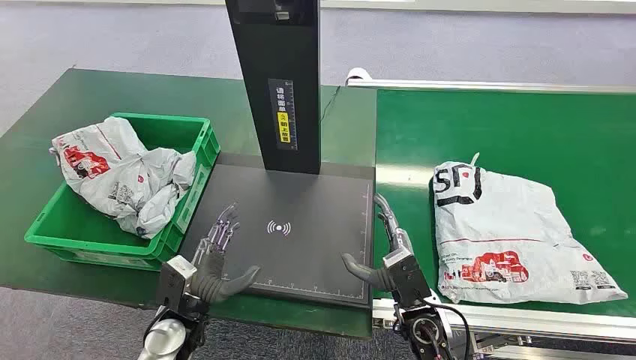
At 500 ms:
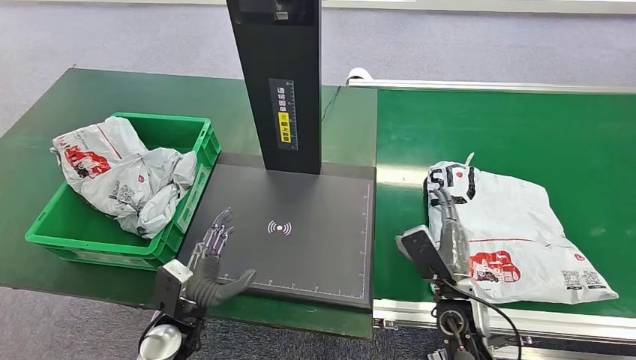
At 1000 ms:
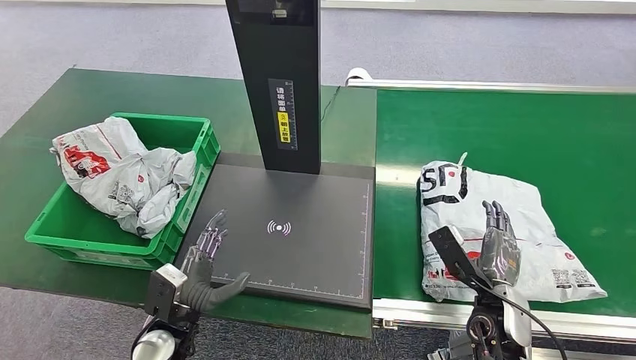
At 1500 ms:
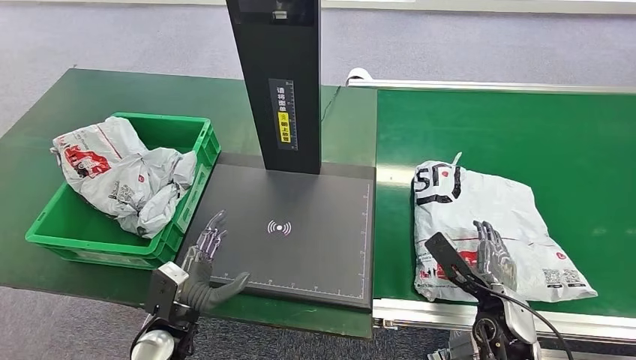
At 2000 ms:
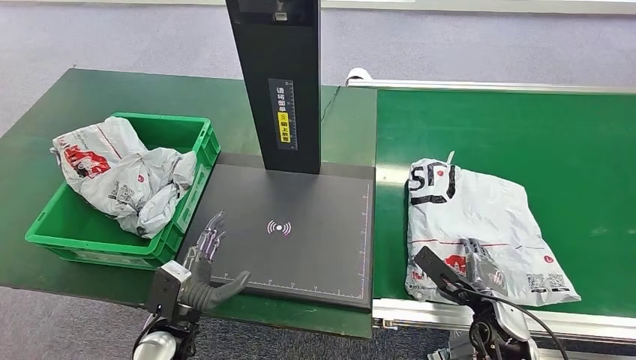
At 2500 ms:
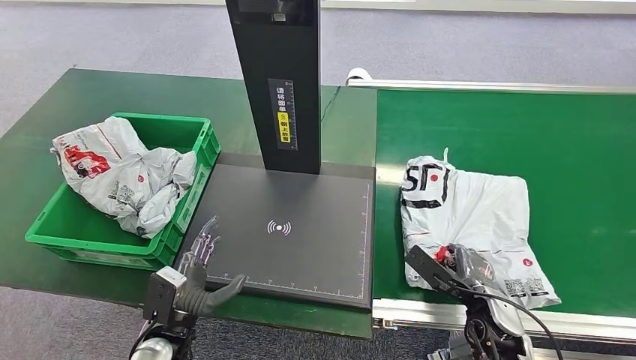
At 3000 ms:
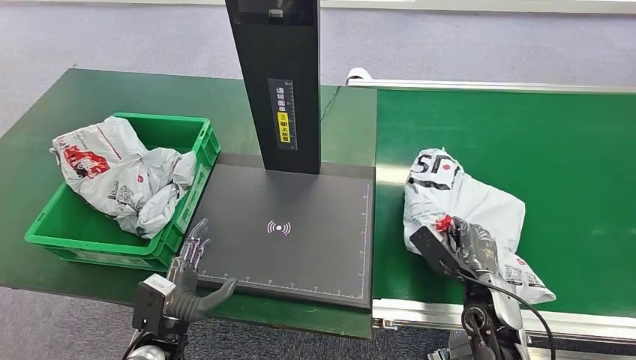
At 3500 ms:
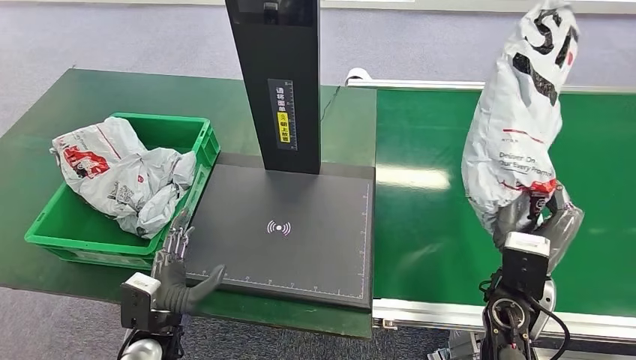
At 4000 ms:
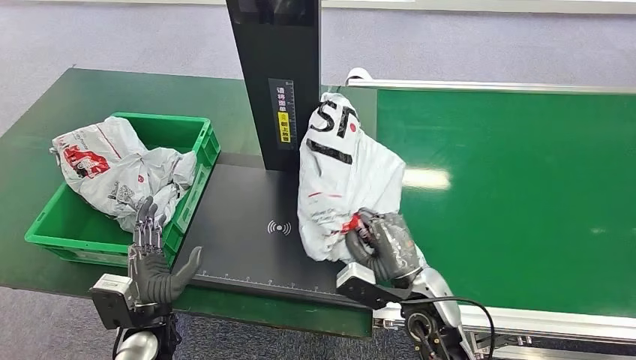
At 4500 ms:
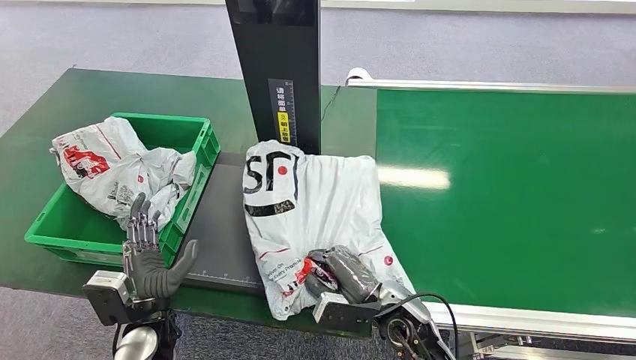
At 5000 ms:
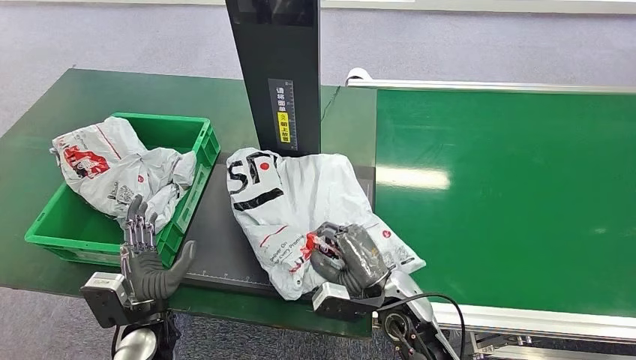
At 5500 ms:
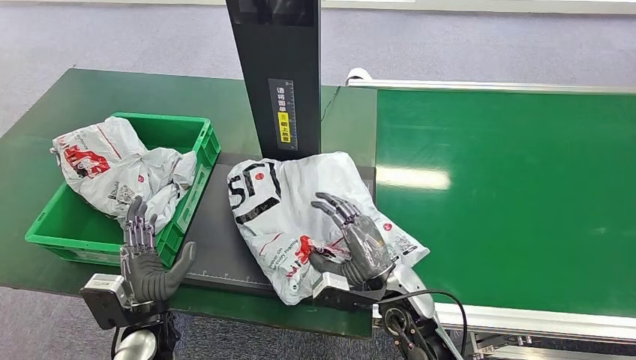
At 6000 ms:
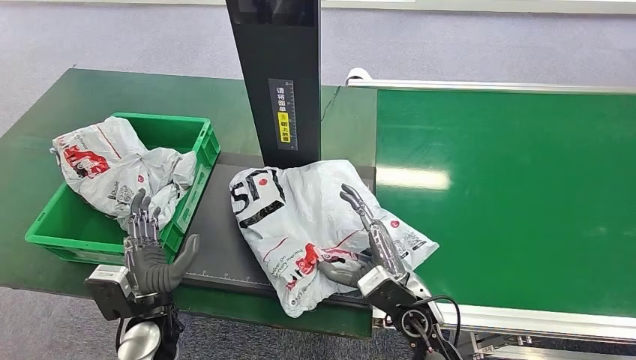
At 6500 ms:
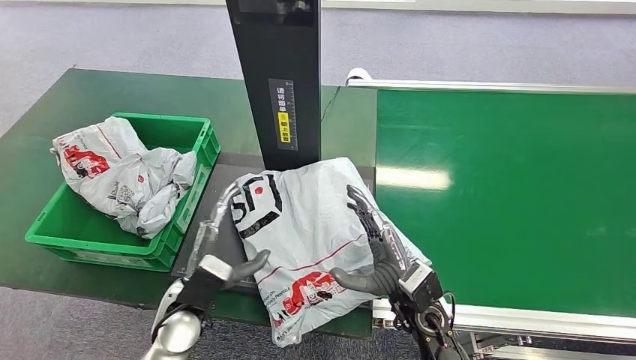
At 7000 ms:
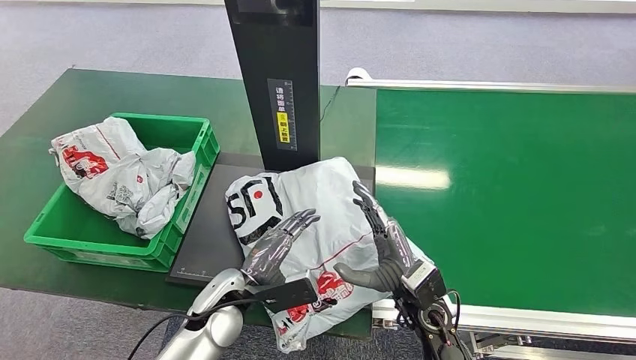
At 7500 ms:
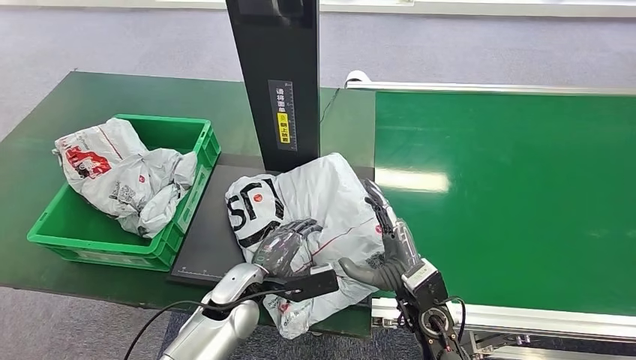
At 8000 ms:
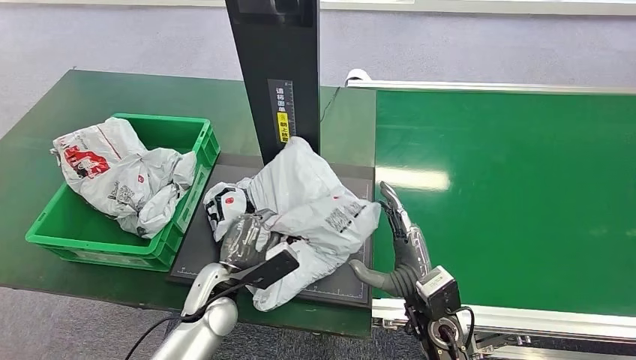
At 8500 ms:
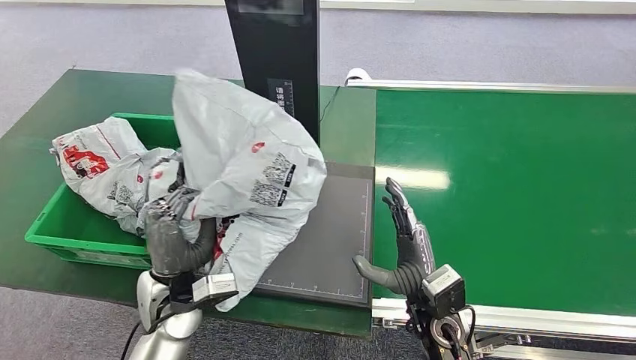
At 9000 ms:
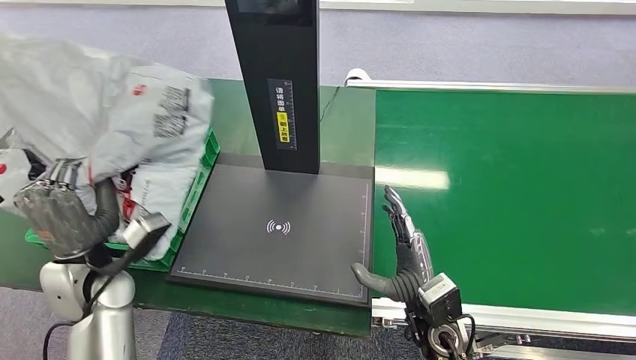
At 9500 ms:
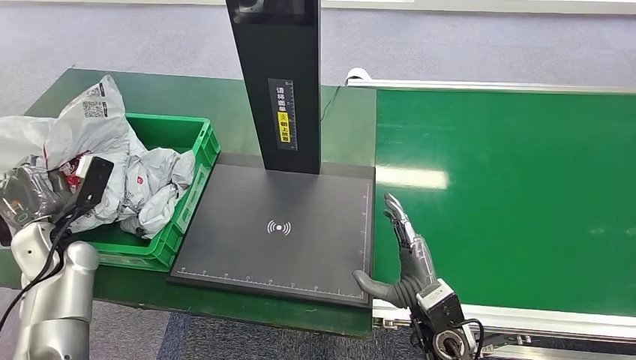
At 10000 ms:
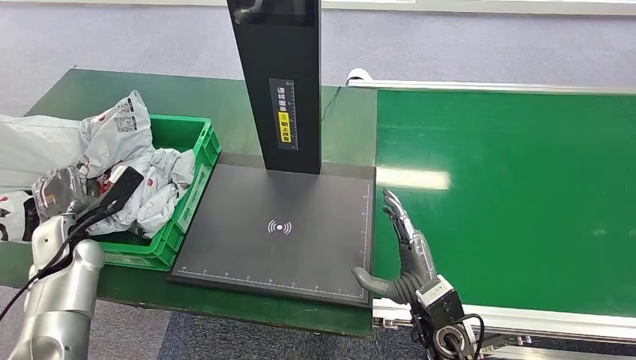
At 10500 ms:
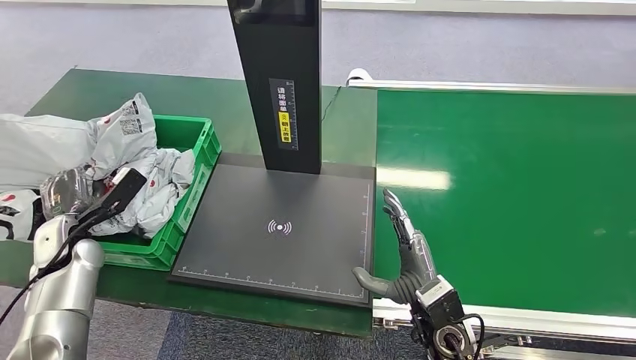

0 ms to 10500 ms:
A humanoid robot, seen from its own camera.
Task of the whole recording: Weigh the package on the weighing device and place it in the left basket.
Step, 0 ms to 3000 ms: Pick up the package from the conveyor belt.
Step, 3500 ms to 6500 ms: Place the package onto the inbound machine.
Step, 7000 ms to 8500 ms: Pick up the package from the inbound machine.
4000 ms to 6500 ms: The left hand moves some 5 cm.

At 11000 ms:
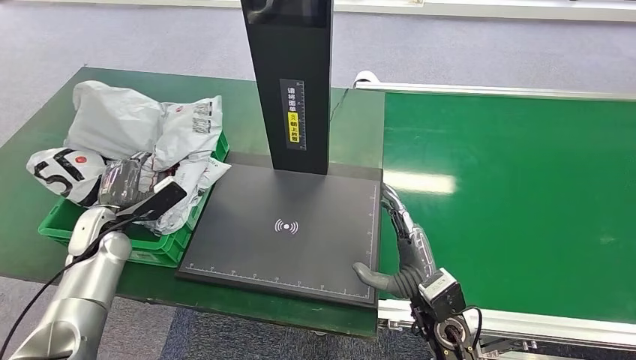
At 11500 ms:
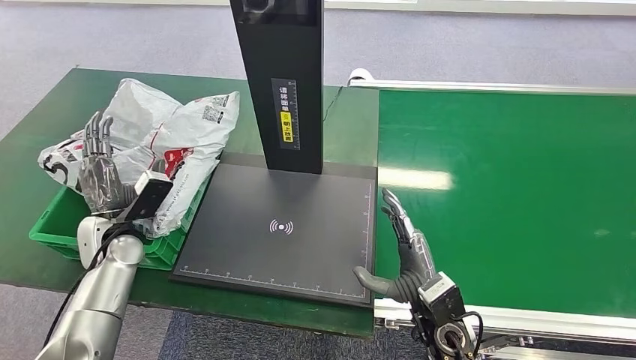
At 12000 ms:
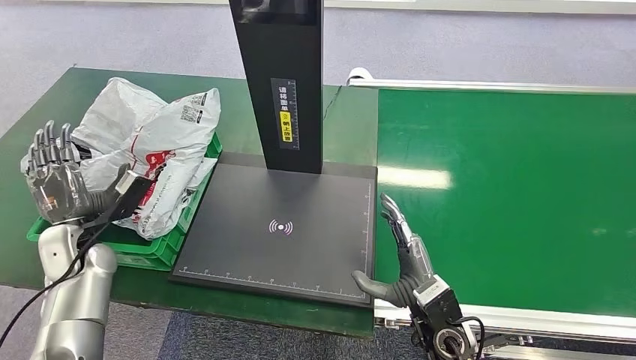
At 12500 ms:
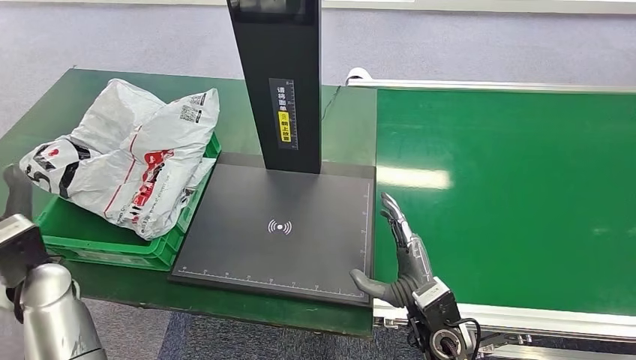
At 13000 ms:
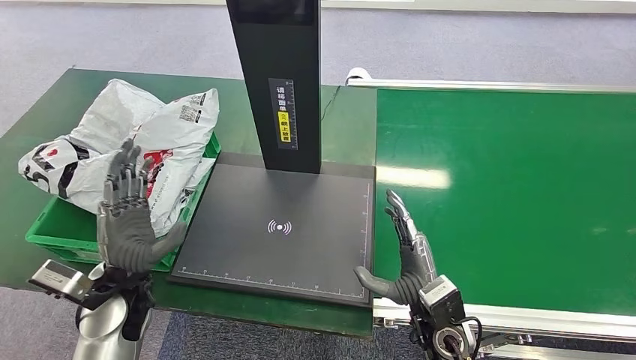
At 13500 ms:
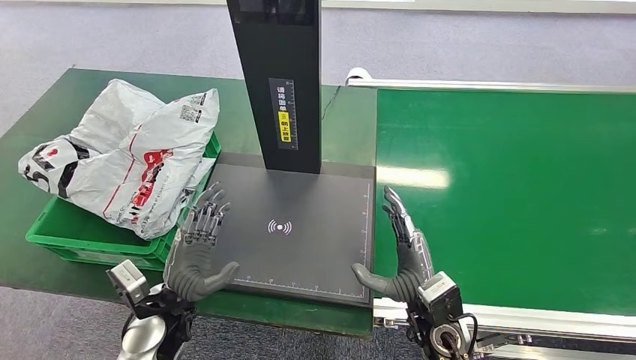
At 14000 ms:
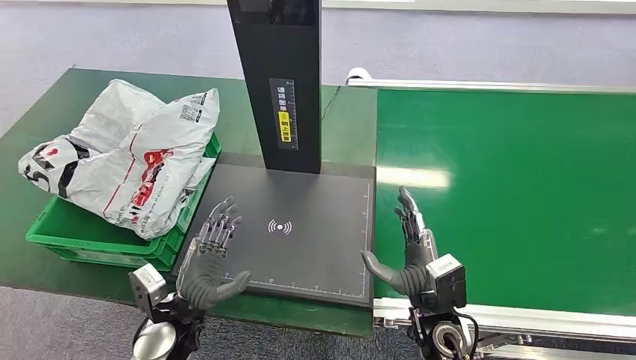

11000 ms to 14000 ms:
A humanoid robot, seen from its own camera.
Task of the whole recording: Weigh the package on the weighing device and place it in the left basket.
Step, 11000 ms to 13500 ms: Place the package into the parcel locker.
12500 ms to 14000 ms: The left hand travels to the right and downward by roughly 20 cm.
